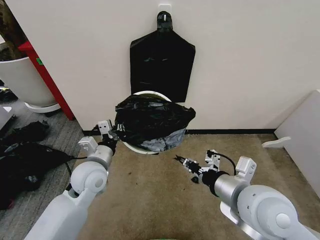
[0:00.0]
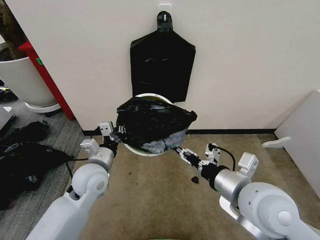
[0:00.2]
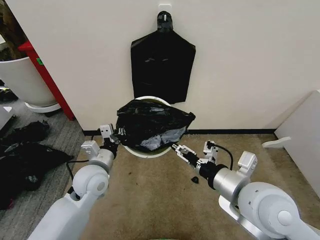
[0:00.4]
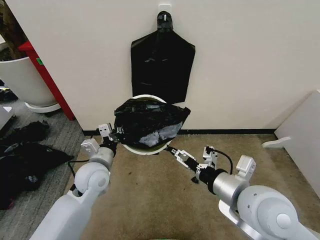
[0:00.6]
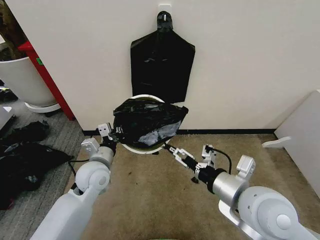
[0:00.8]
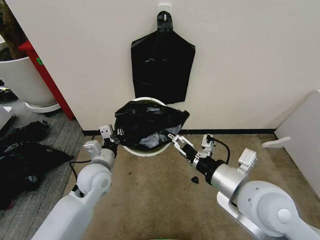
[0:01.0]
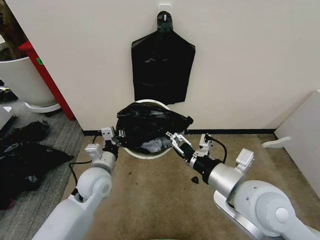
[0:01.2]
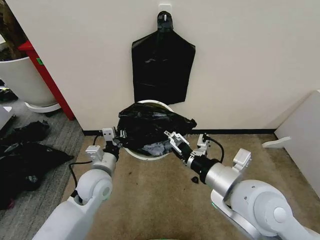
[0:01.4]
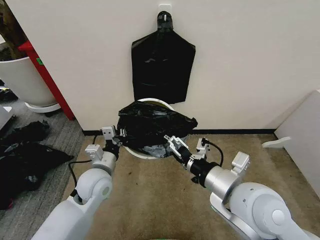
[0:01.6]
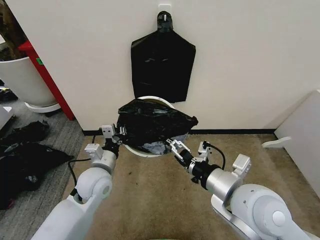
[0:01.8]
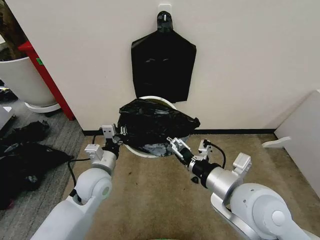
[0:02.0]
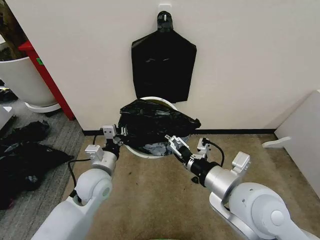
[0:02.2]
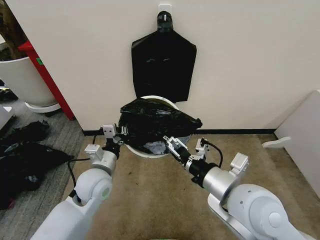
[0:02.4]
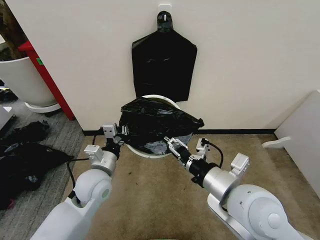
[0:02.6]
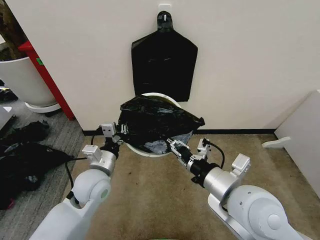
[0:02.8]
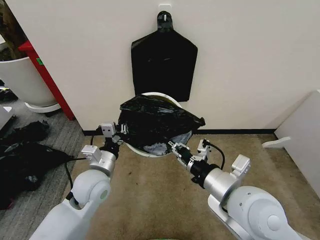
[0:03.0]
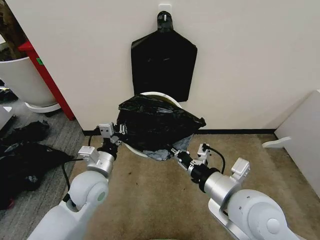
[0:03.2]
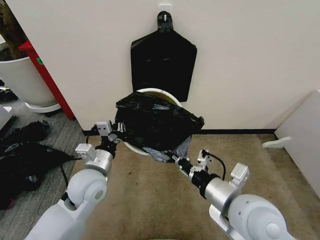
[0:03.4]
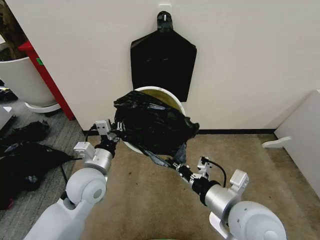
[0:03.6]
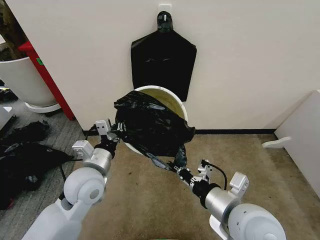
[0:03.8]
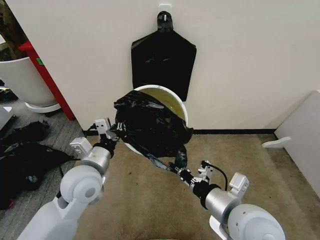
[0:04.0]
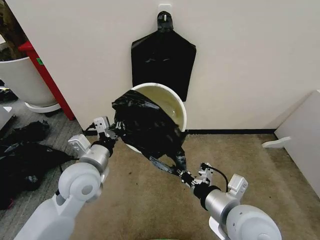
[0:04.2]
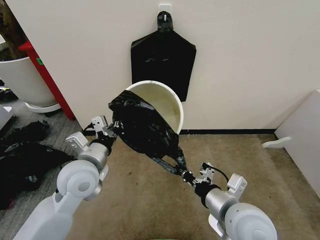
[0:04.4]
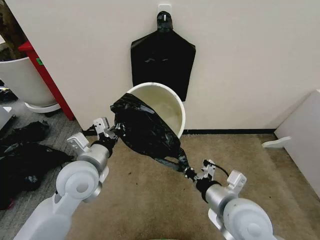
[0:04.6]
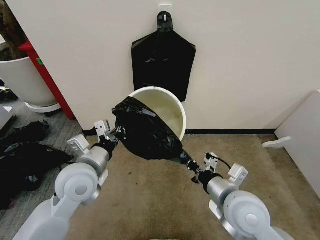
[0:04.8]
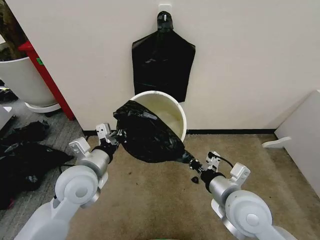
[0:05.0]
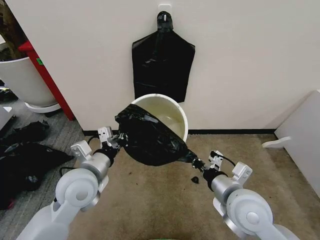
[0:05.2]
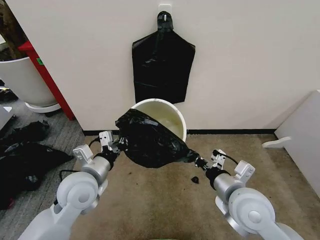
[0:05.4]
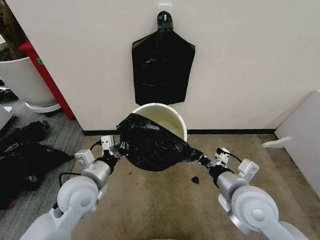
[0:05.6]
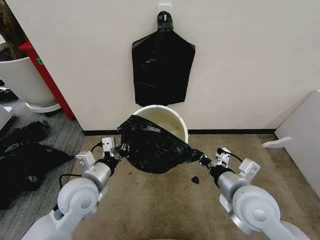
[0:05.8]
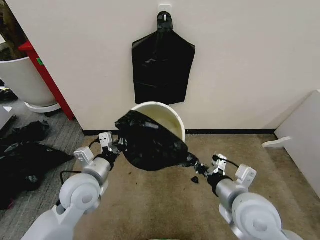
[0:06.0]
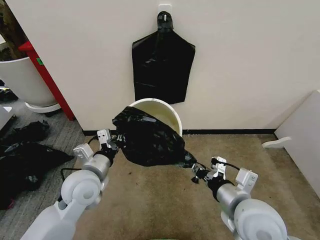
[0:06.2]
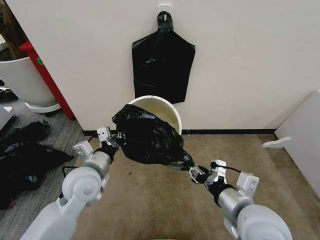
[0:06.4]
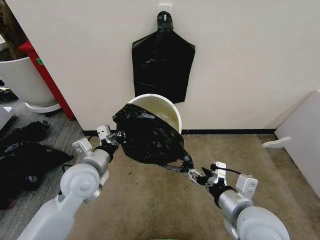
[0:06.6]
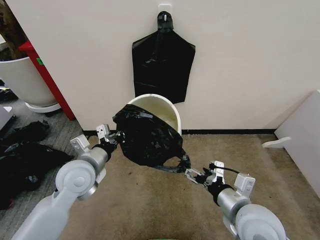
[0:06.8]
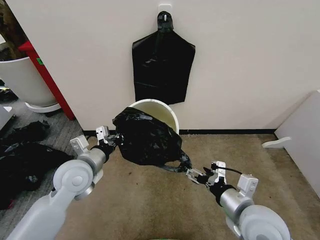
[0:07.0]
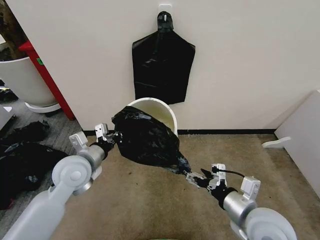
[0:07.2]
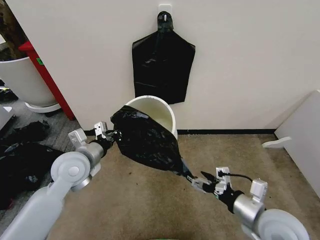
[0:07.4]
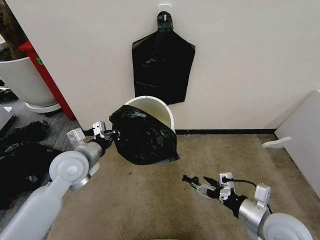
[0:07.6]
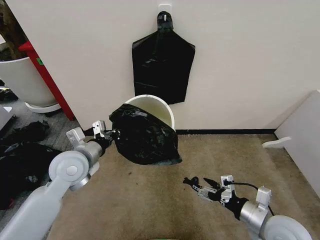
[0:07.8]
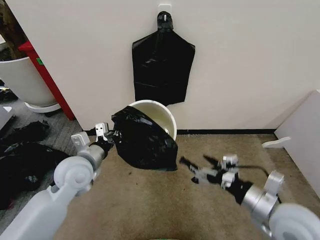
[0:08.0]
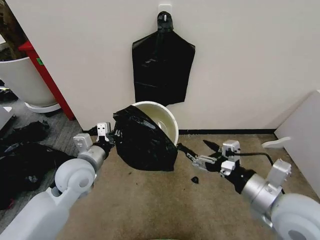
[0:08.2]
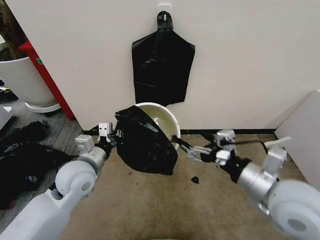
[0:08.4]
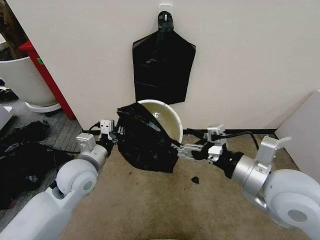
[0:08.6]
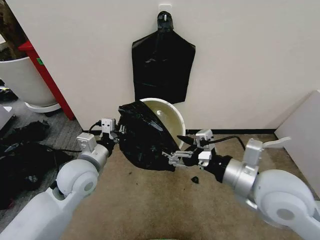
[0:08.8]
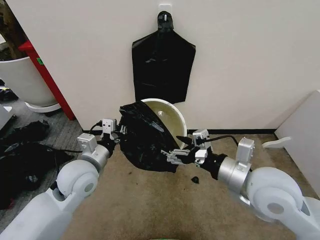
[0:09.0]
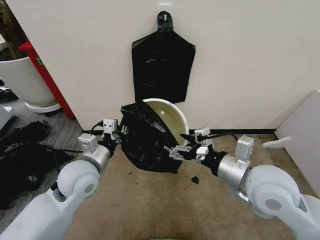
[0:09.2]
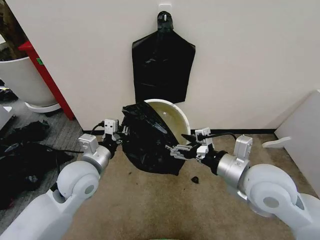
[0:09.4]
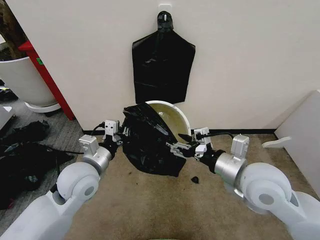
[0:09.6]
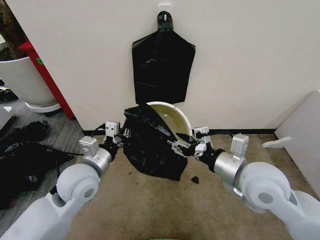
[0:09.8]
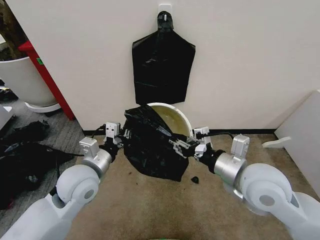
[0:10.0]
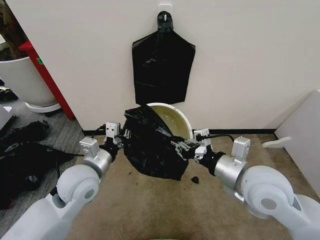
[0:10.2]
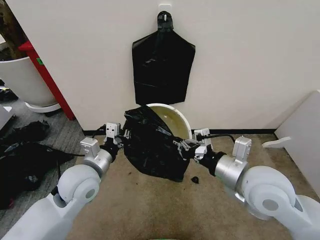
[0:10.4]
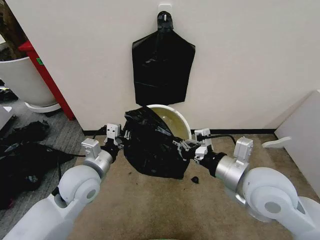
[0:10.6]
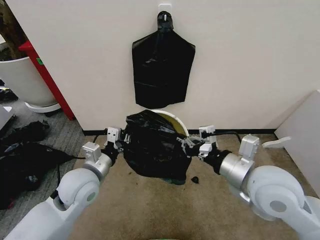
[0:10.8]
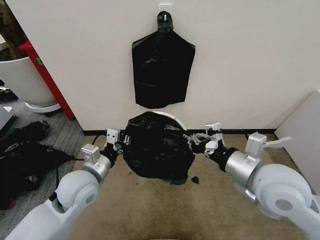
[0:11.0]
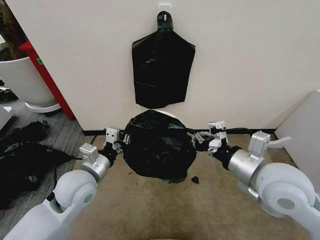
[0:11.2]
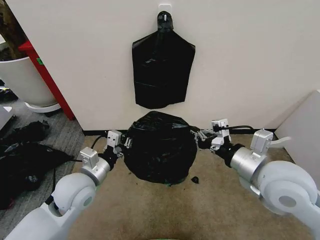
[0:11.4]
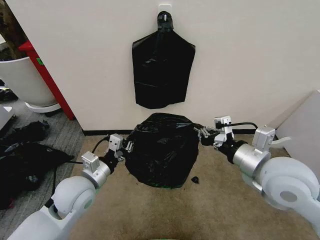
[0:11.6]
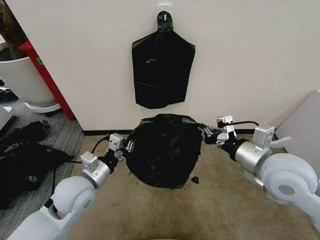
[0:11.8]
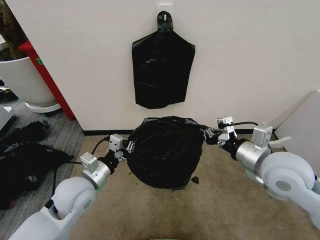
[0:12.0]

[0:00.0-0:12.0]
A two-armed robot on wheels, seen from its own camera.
Task of the whole recording: Place the garbage bag over the trash bin.
0:00.0 to 0:01.6: The right gripper opens its fingers.
0:01.6 to 0:03.0: The right gripper closes.
0:03.0 to 0:04.4: The right gripper moves downward, roughly 5 cm. Meanwhile the left gripper goes roughly 5 cm upward.
0:04.4 to 0:06.0: There are only small adjustments of the grippers.
0:06.0 to 0:07.6: The left gripper heads forward, covering roughly 5 cm. Meanwhile the right gripper shifts roughly 10 cm to the right and downward, and opens up.
0:07.6 to 0:09.0: The right gripper shifts approximately 15 cm upward and to the left.
0:09.0 to 0:10.4: The right gripper closes up.
0:10.4 to 0:12.0: The right gripper travels to the right by approximately 5 cm.

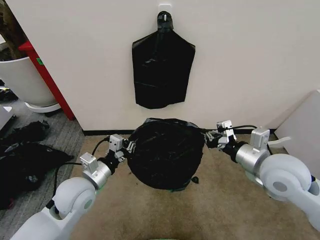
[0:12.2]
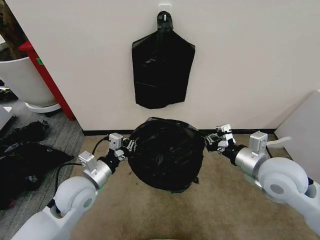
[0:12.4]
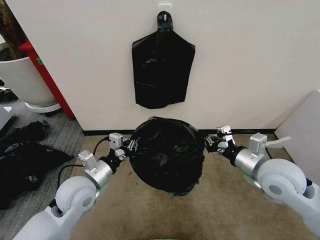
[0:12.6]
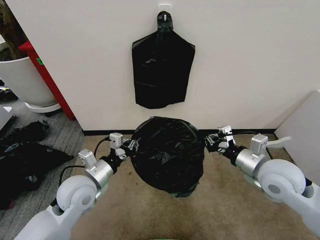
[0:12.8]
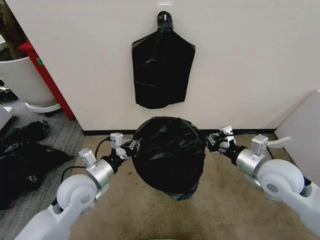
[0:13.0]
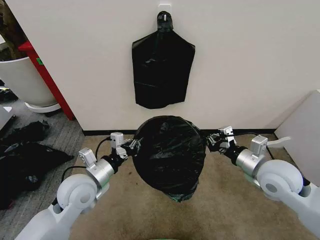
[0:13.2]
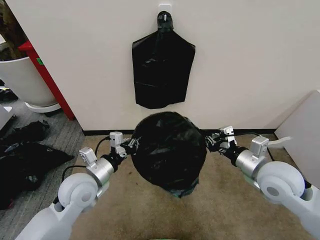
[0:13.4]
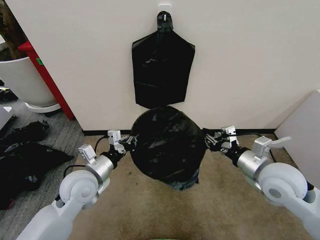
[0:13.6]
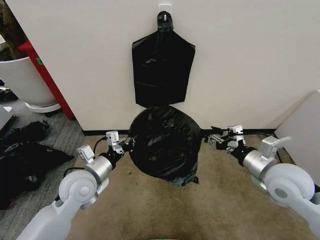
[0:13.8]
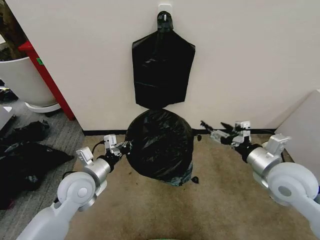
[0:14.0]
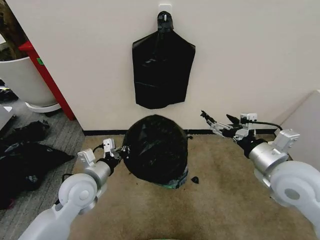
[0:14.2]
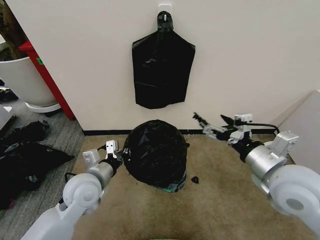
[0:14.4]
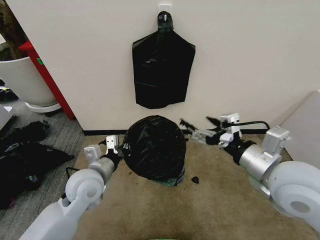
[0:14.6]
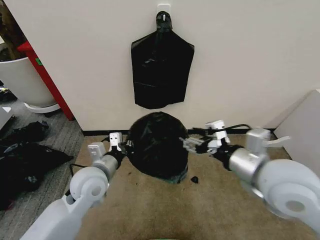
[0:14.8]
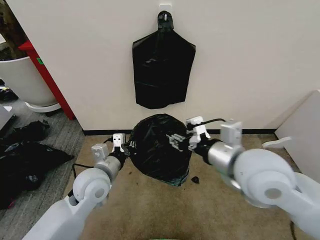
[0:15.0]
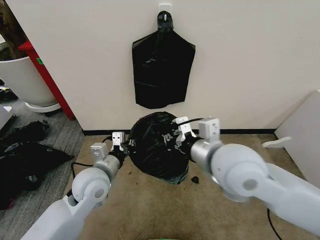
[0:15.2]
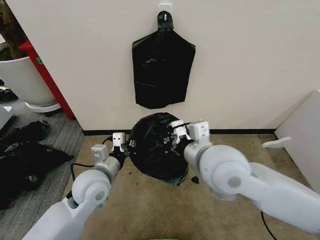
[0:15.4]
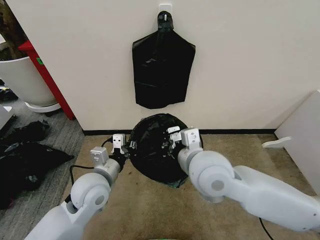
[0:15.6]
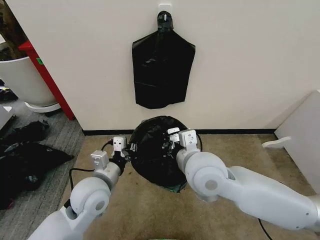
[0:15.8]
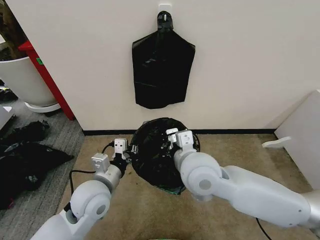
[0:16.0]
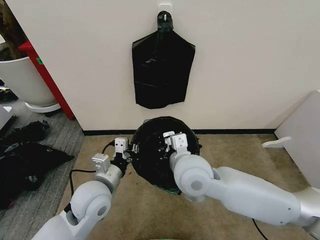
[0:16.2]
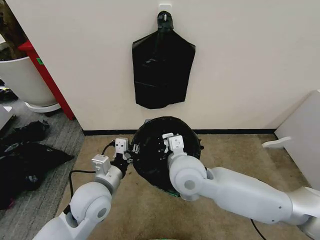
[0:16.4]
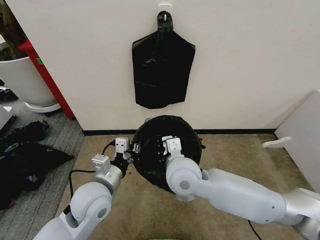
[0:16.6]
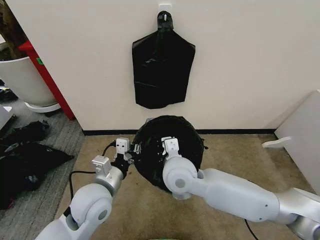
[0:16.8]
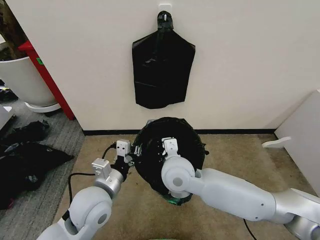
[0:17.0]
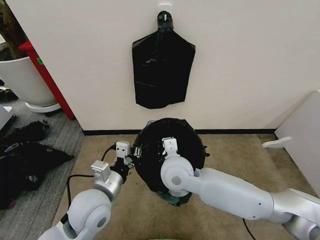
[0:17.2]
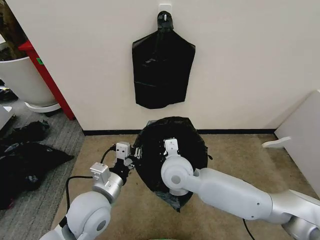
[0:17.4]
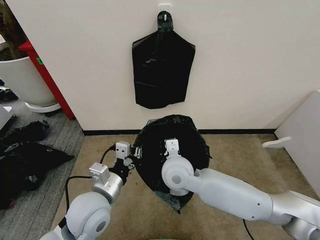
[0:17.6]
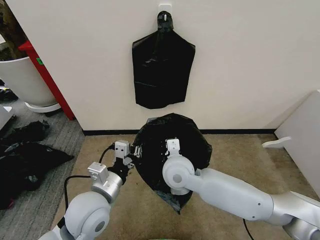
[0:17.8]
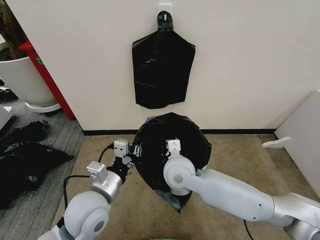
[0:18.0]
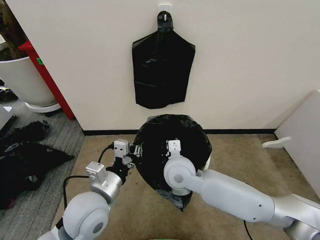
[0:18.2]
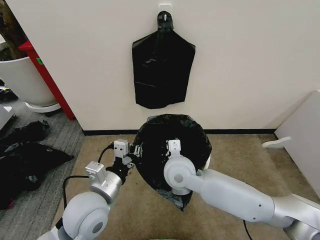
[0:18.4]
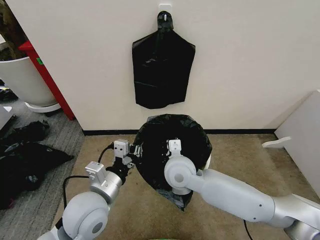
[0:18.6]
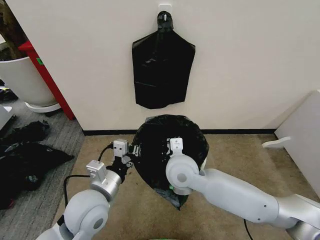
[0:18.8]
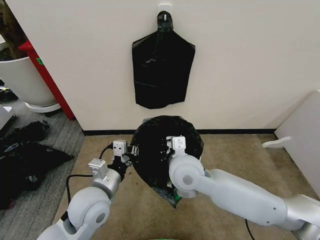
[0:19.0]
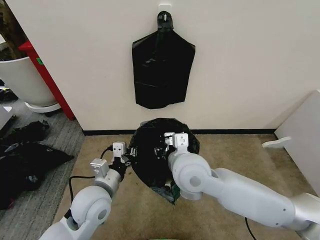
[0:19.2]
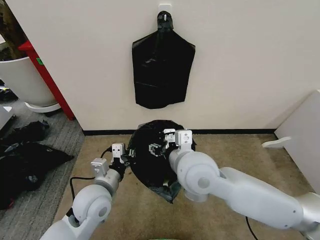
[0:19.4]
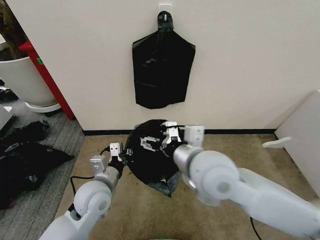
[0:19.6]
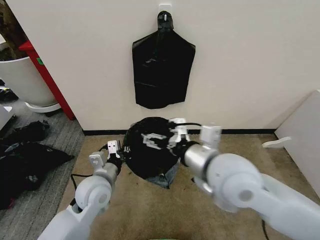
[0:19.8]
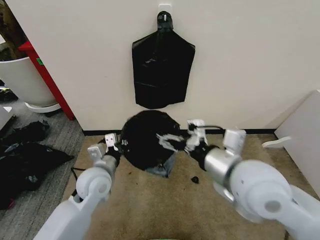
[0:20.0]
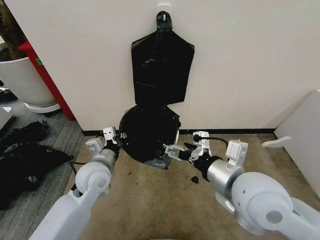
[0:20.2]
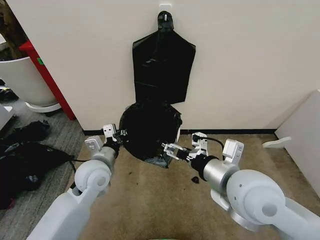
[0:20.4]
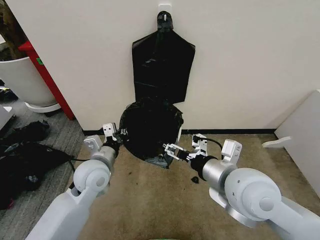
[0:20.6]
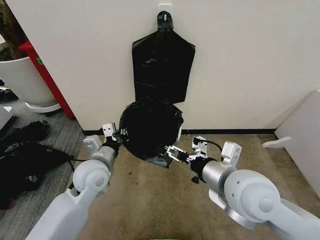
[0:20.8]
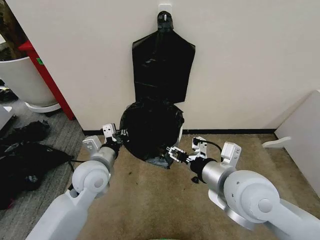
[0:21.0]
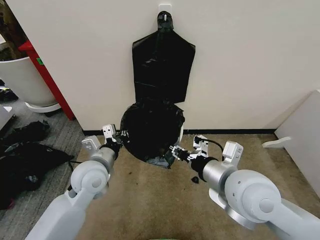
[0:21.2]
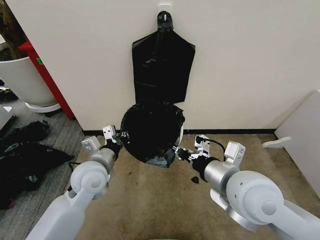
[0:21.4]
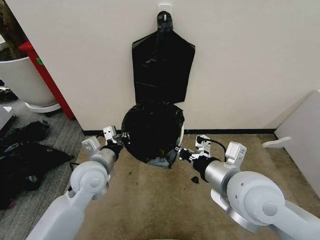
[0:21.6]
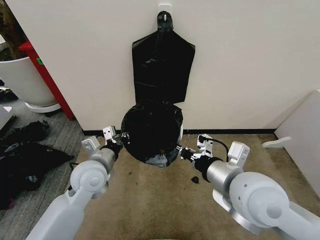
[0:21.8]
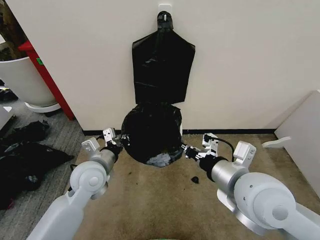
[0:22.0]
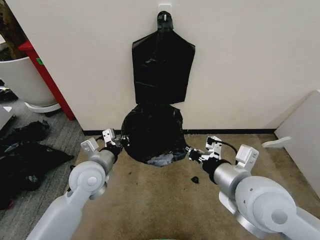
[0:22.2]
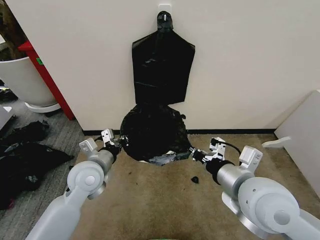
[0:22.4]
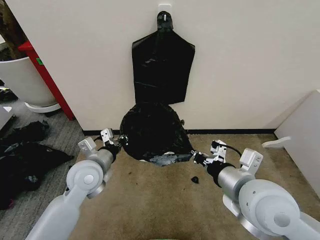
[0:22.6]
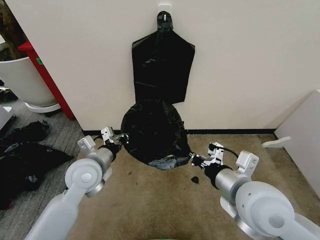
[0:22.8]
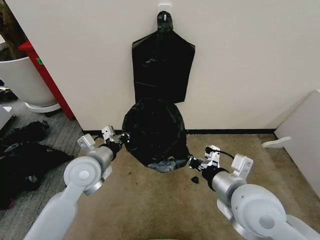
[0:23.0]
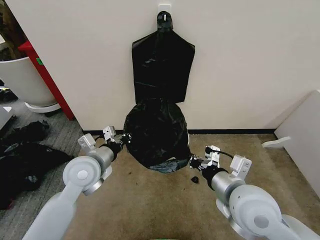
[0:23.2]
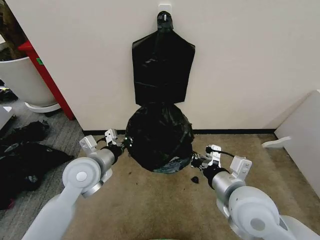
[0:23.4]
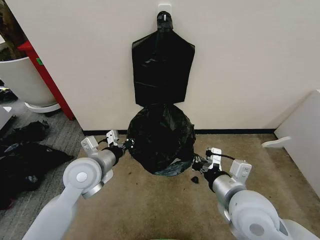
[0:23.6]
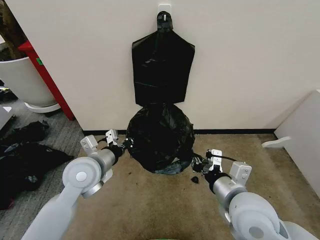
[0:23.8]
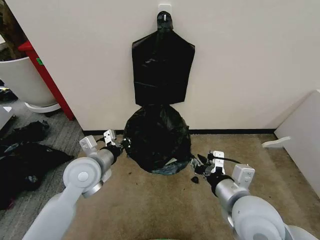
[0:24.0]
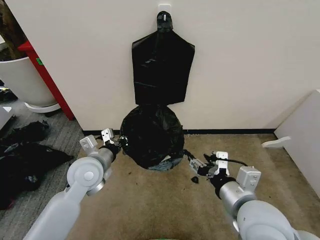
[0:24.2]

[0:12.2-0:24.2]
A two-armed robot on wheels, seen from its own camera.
Task of the whole recording: Place the garbage bag over the trash bin.
0:12.2 to 0:13.8: The right gripper opens up.
0:13.8 to 0:15.2: The right gripper shifts approximately 20 cm to the left and upward, and closes up.
0:15.2 to 0:16.6: The right gripper moves downward and to the left, some 15 cm.
0:16.6 to 0:18.2: There are only small adjustments of the grippers.
0:18.2 to 0:19.8: The left gripper is displaced forward by approximately 5 cm, while the right gripper moves upward, to the right and backward, about 15 cm, and opens up.
0:19.8 to 0:21.2: The left gripper shifts by roughly 5 cm. The right gripper ends up about 5 cm from where it was, and closes its fingers.
0:21.2 to 0:22.6: The grippers stay close to where they were, moving slightly.
0:22.6 to 0:24.2: The right gripper moves approximately 5 cm, and opens.
